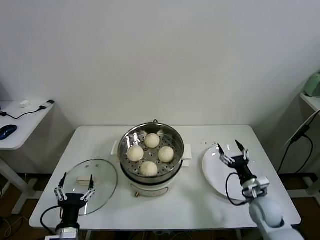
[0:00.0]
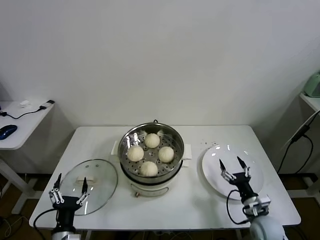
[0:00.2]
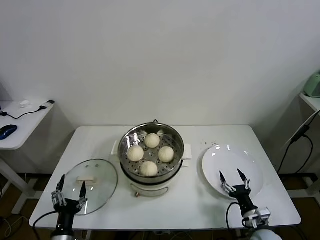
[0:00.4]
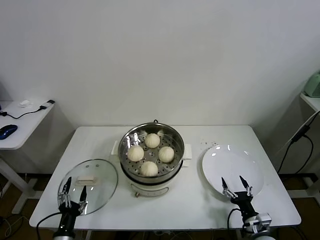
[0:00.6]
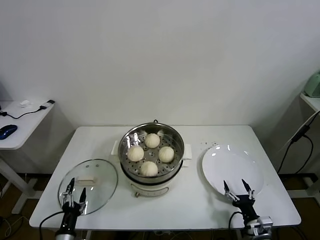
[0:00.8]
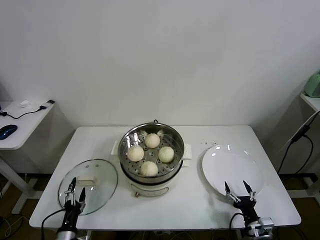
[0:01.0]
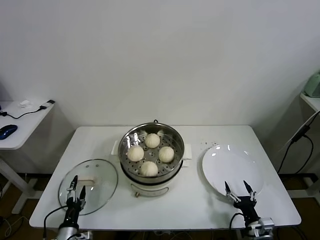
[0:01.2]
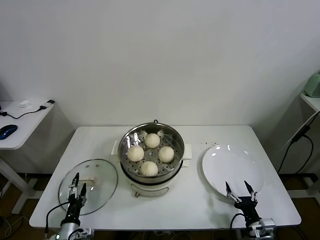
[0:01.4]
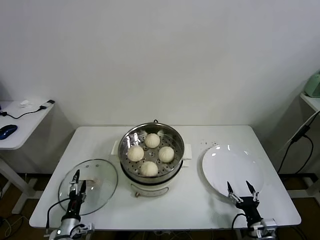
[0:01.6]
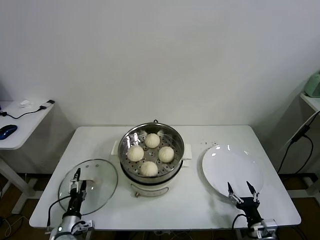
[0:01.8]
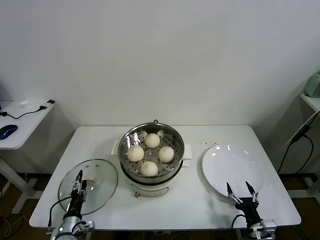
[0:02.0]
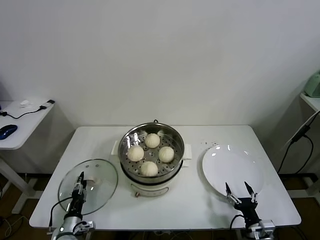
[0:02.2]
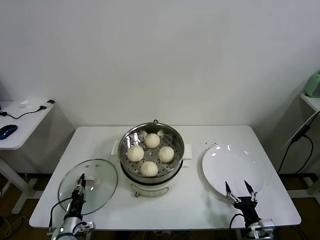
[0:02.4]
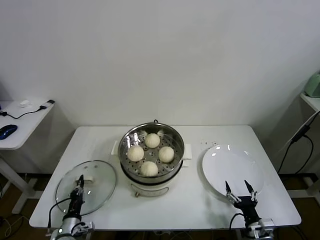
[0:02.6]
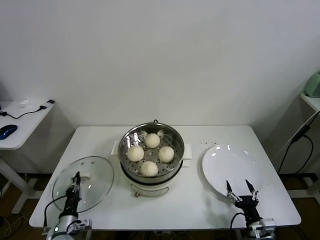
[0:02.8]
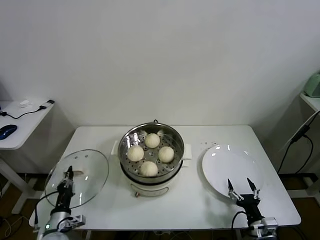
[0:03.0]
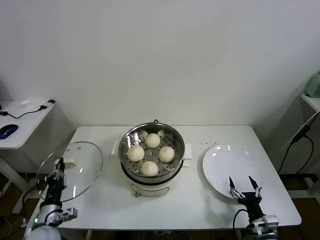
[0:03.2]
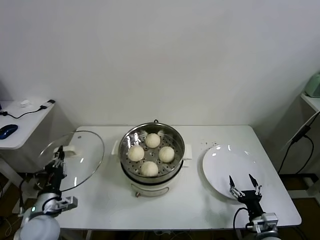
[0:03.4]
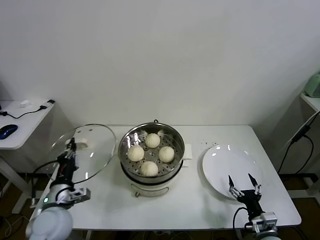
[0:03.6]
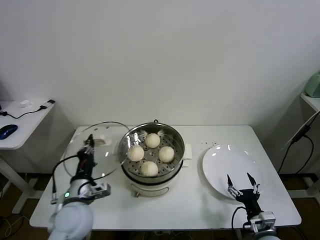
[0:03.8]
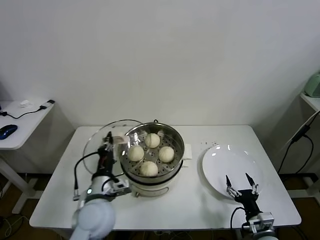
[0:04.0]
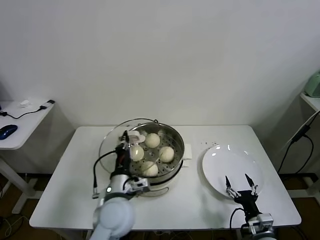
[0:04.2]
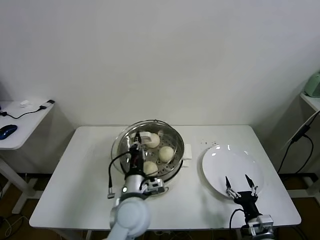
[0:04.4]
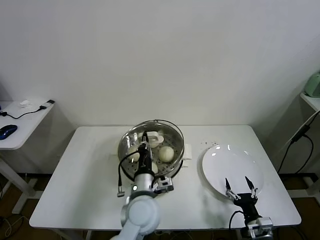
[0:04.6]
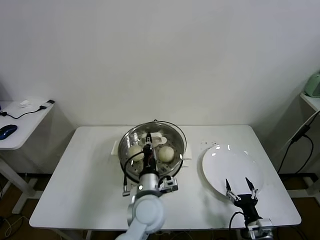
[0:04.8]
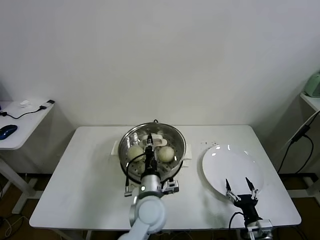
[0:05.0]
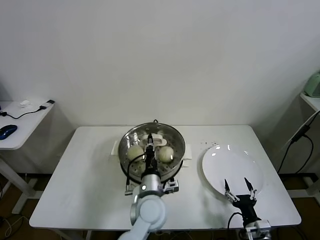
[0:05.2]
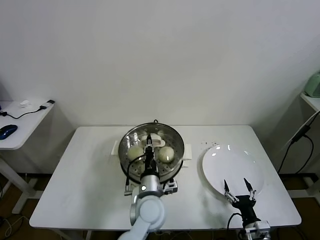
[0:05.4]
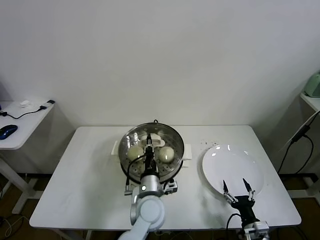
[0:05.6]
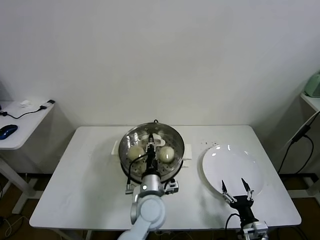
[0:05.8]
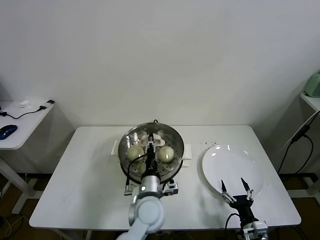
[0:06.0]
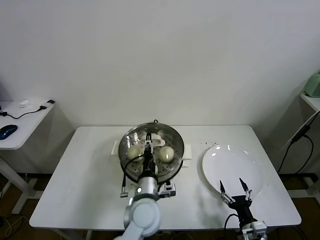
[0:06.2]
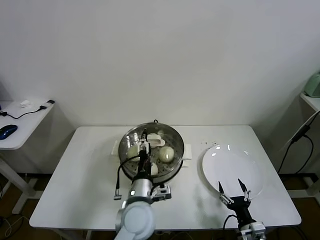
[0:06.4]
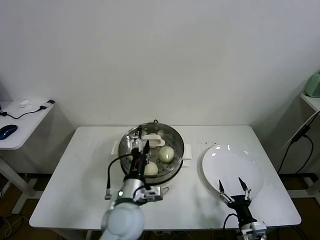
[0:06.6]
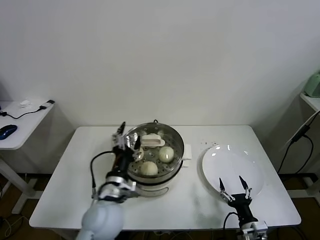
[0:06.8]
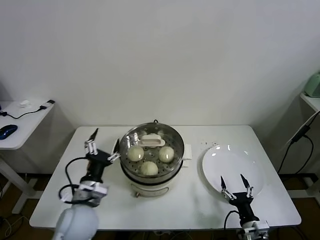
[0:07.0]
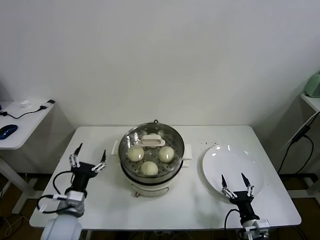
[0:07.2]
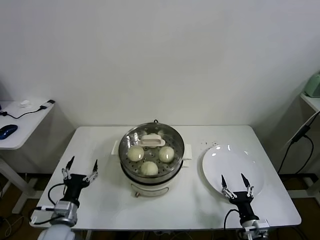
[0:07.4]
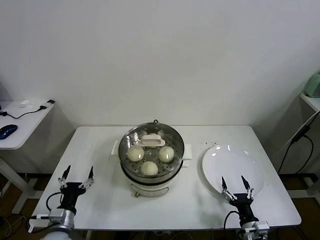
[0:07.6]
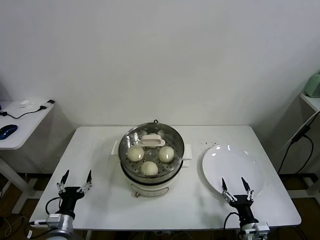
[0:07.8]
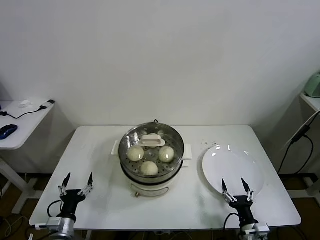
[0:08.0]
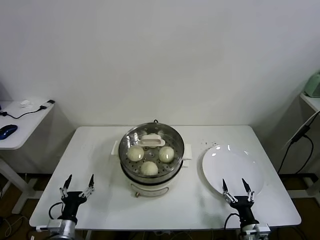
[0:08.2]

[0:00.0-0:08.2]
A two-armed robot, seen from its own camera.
Task of the whole recording: take steamed baozi put them in steamer.
Step, 0:00.0 to 0:02.4: Grasp the pot lid with left gripper.
Step, 0:02.6 to 0:05.8: Place the pot lid on the steamer with left gripper.
0:00.0 to 0:01.6: The right gripper heads backward and downward, covering some 15 cm, while the left gripper shifts roughly 15 cm downward, to the left and forward.
0:01.6 to 0:03.2: The left gripper travels upward by roughly 10 cm, and closes its fingers.
0:03.2 to 0:05.0: The left gripper goes roughly 35 cm to the right.
0:05.0 to 0:06.6: The left gripper moves some 5 cm, and opens up.
0:06.6 to 0:08.2: The left gripper heads to the left and downward, covering roughly 30 cm.
